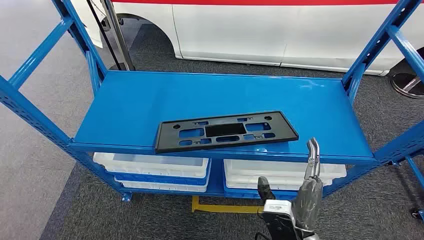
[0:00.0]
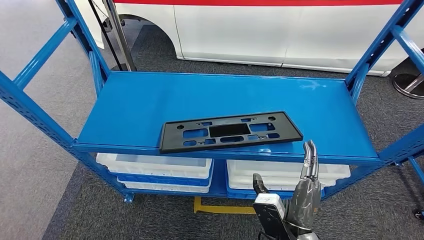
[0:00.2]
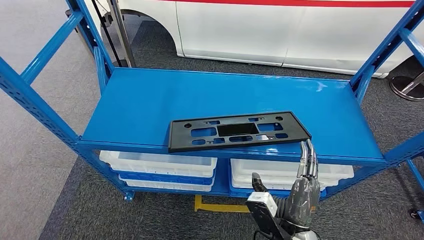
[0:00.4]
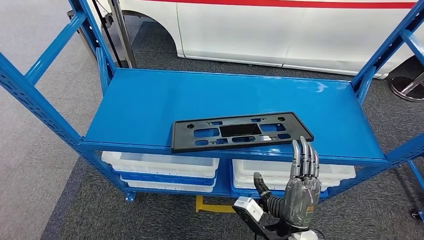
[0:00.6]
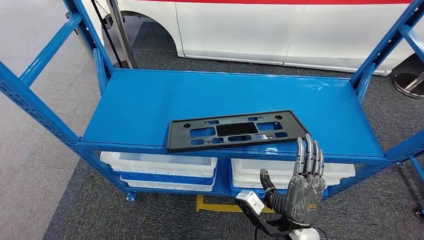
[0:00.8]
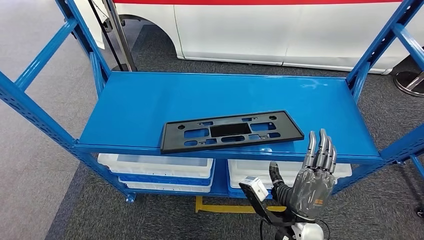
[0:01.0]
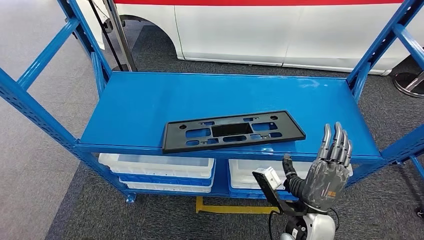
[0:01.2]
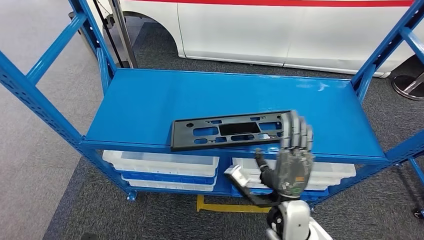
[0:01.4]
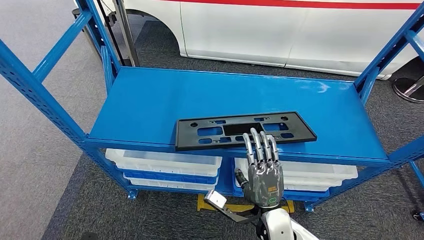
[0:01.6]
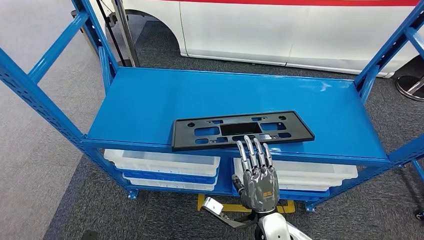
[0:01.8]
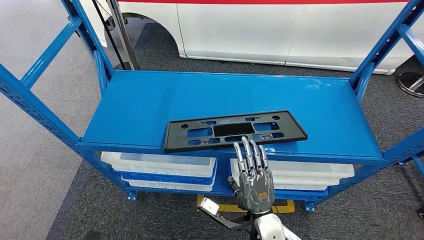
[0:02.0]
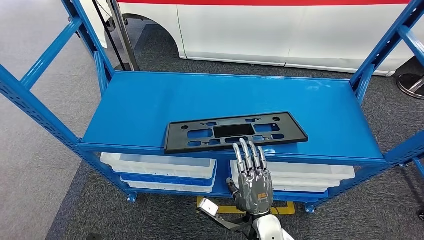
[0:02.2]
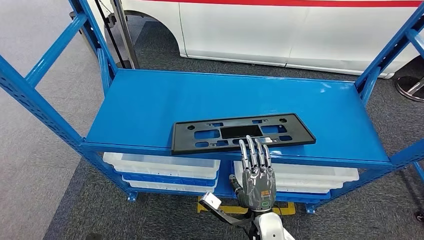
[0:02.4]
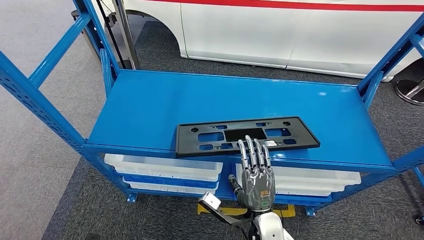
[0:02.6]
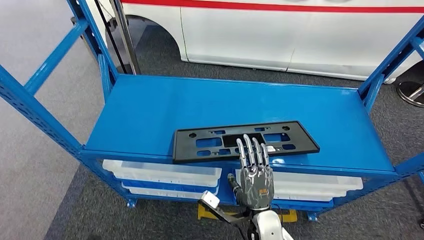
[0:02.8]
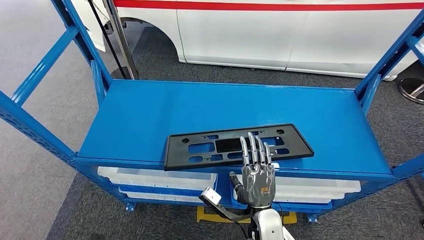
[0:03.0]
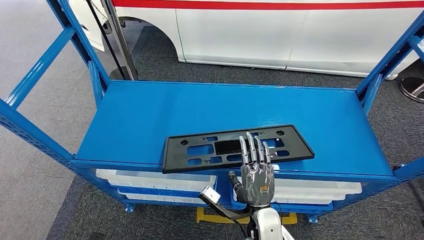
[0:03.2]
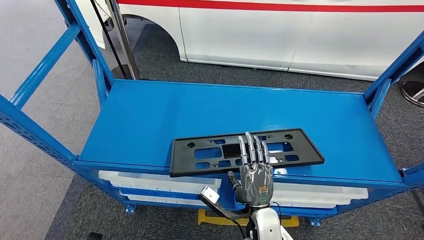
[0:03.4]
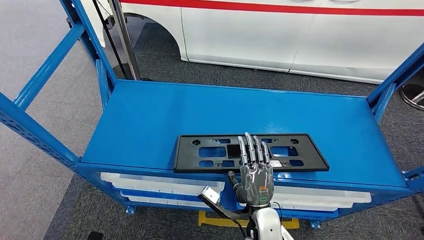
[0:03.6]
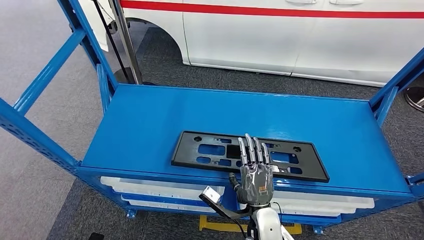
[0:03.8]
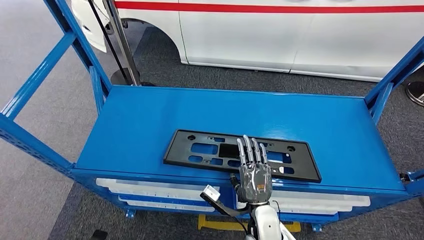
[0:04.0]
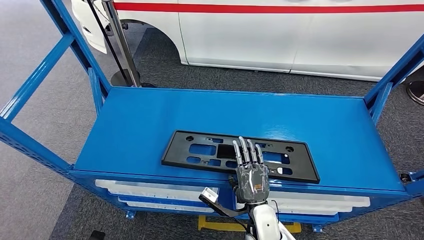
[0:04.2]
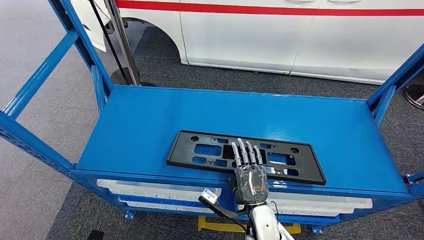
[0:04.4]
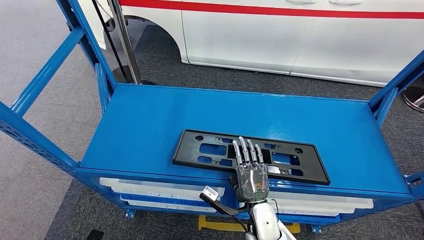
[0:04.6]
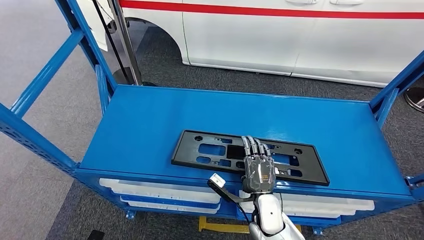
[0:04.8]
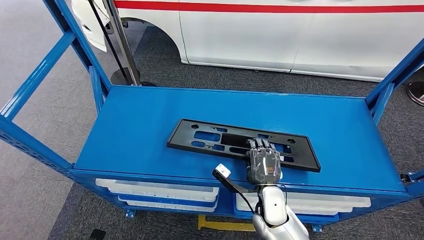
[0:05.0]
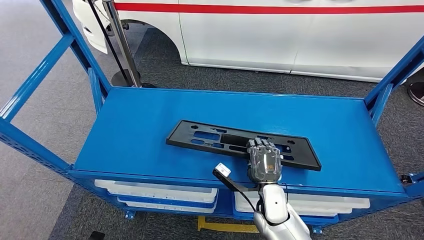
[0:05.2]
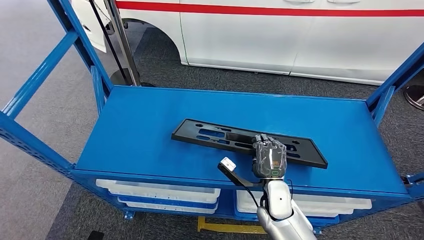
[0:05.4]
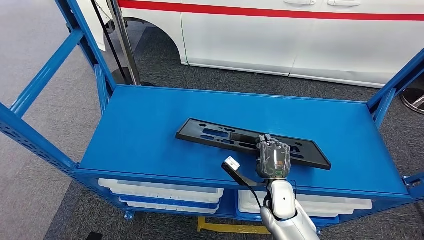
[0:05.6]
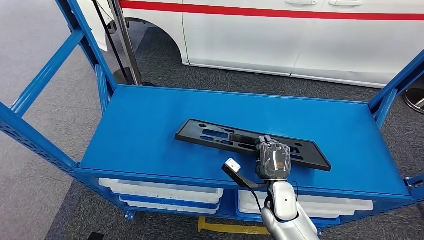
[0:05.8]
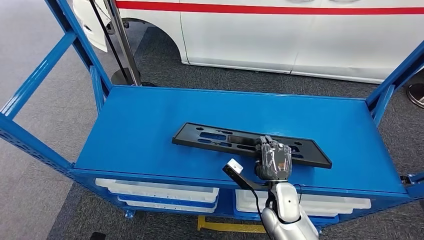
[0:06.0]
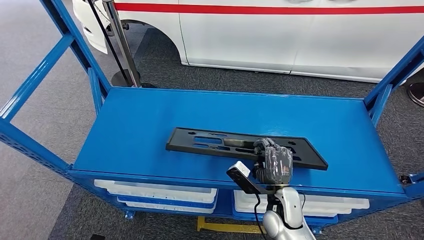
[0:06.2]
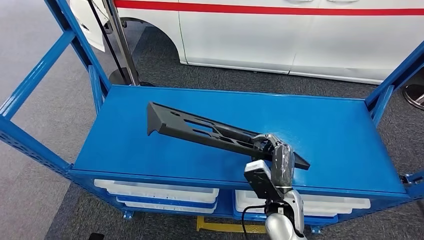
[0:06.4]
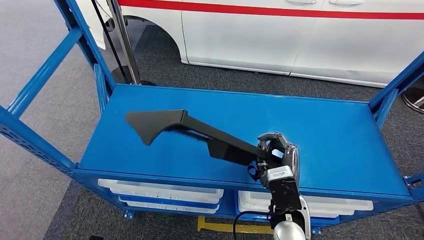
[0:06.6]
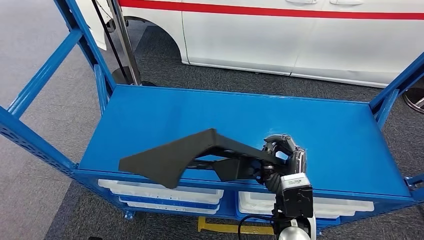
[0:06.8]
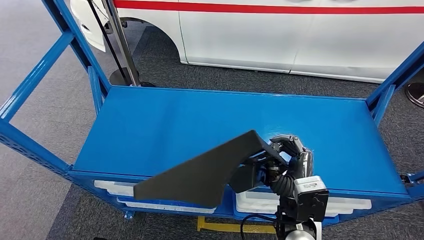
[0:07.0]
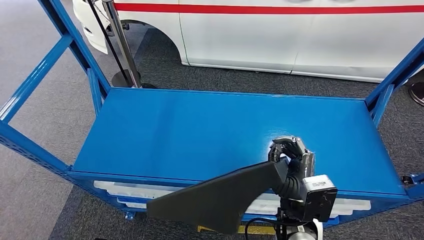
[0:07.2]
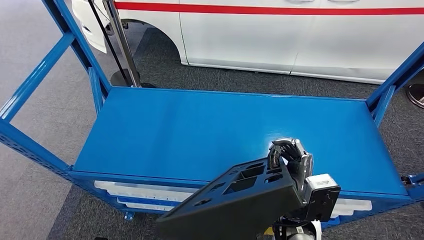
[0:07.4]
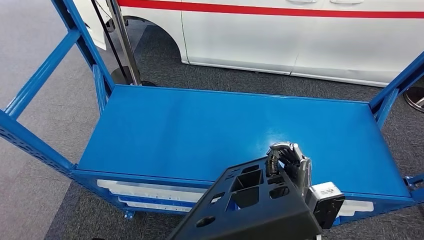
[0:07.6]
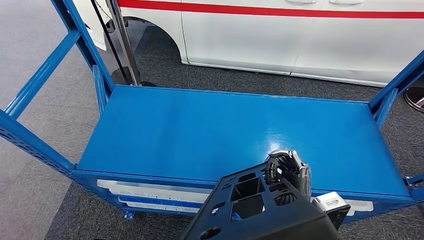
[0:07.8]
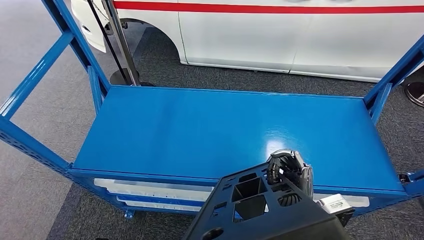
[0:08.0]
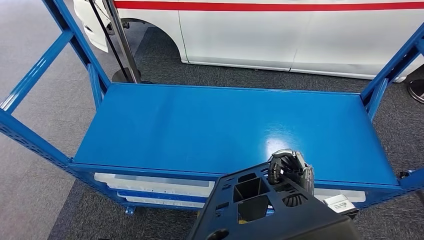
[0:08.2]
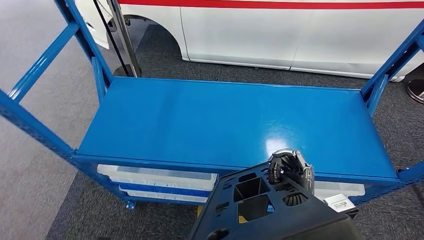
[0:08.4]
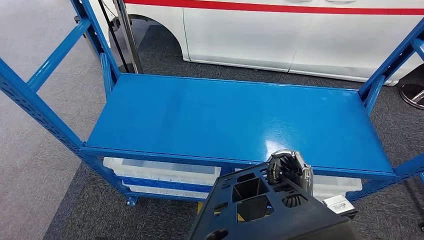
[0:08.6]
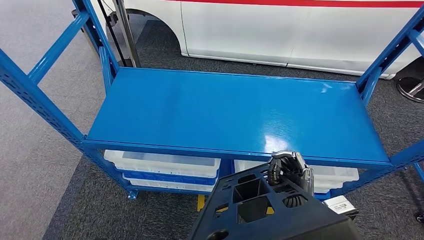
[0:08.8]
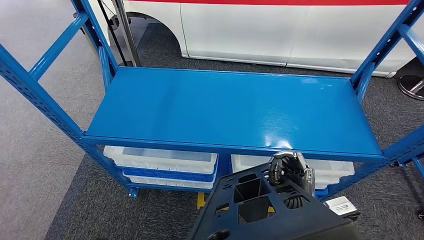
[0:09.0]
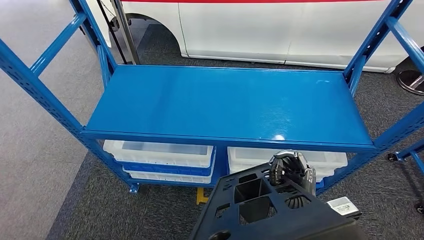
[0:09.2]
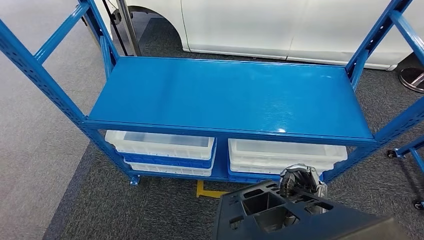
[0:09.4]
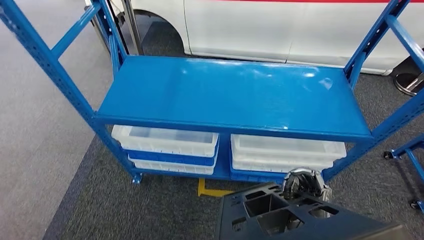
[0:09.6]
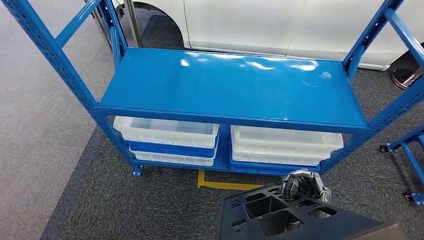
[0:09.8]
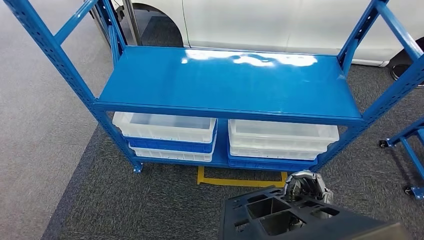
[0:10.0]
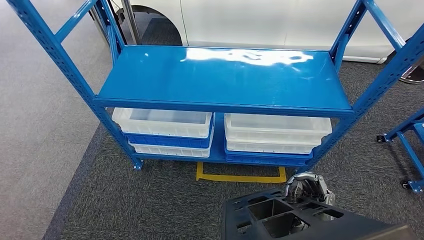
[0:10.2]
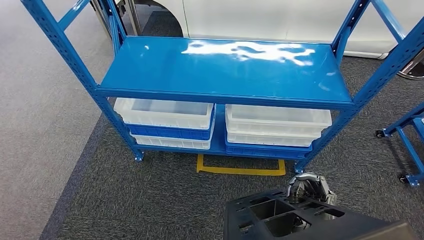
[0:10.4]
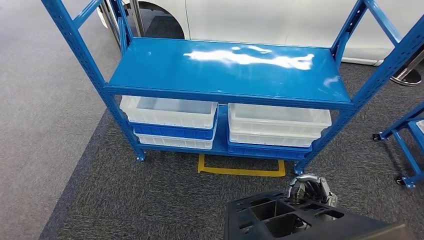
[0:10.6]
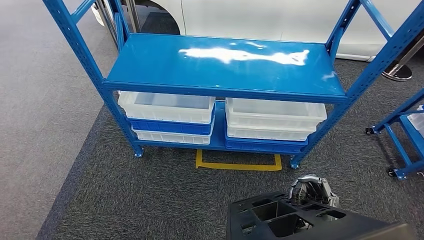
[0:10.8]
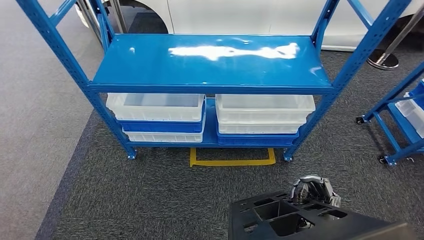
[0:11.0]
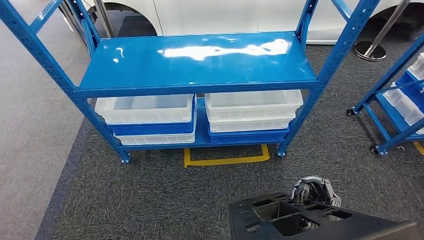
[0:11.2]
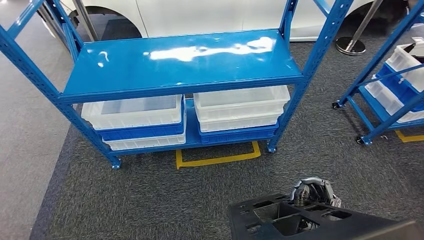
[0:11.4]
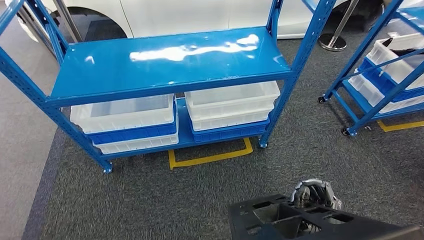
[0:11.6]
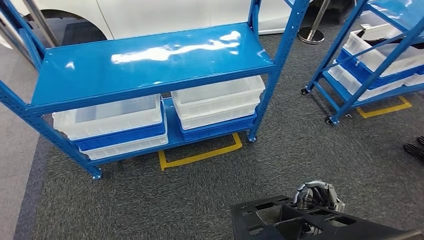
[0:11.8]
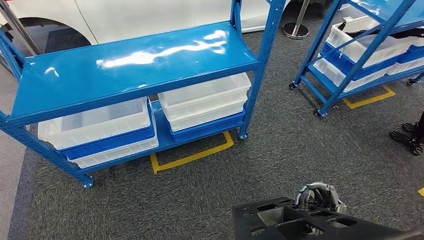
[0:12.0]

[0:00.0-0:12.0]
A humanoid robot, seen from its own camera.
Step, 0:00.0 to 0:07.0: Pick up the large material from the shelf.
0:04.4 to 0:06.0: The right hand goes some 5 cm forward.

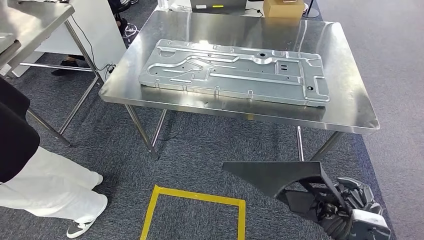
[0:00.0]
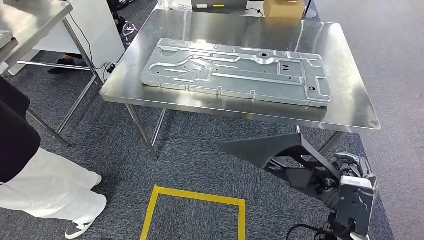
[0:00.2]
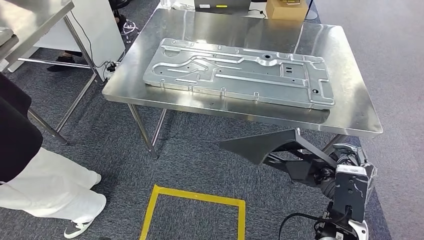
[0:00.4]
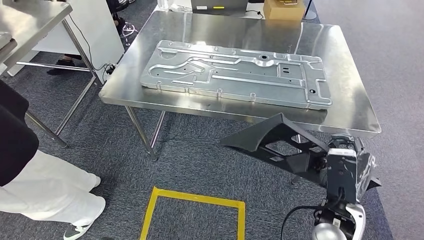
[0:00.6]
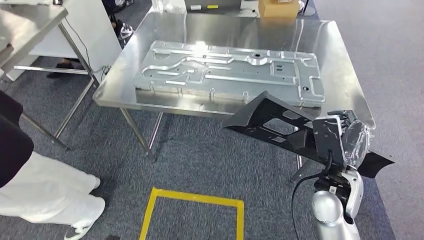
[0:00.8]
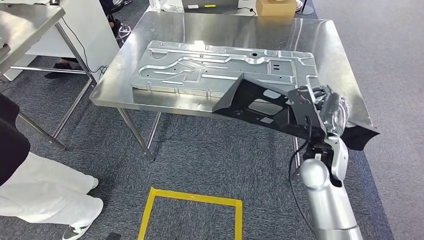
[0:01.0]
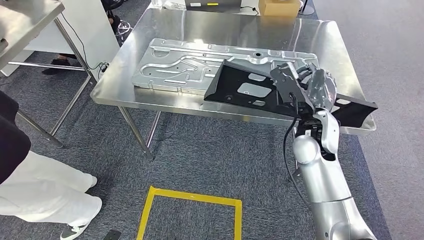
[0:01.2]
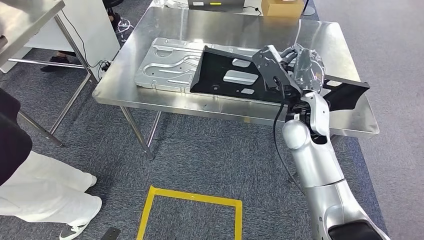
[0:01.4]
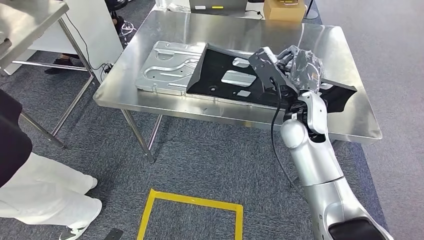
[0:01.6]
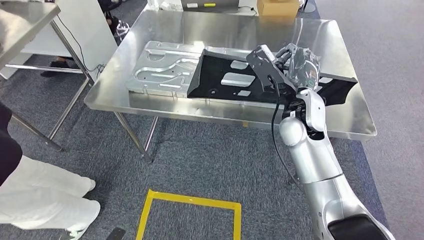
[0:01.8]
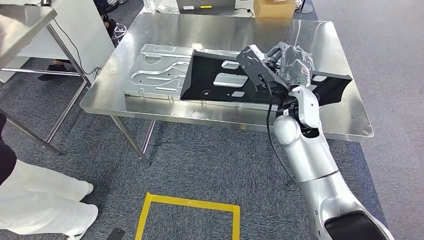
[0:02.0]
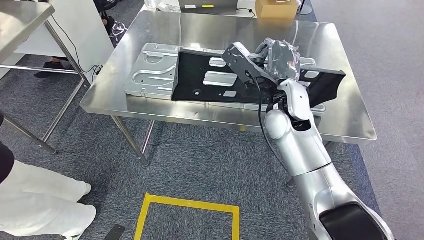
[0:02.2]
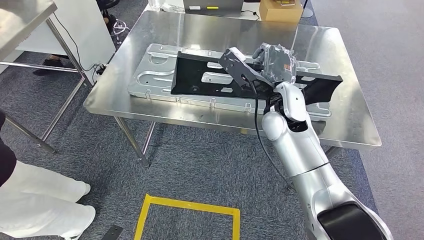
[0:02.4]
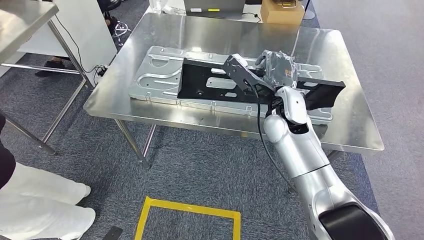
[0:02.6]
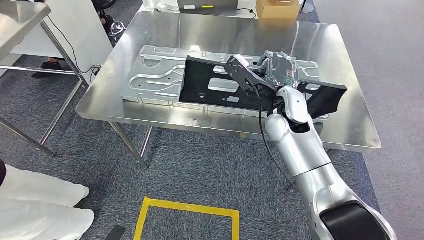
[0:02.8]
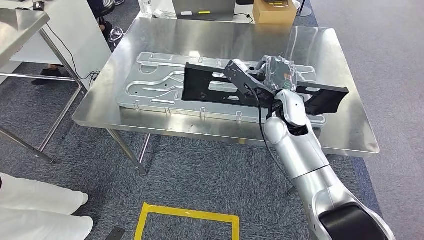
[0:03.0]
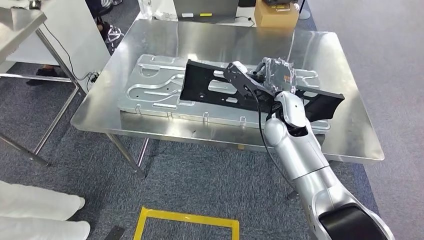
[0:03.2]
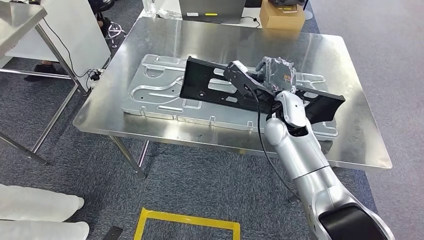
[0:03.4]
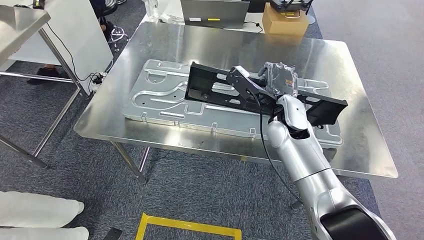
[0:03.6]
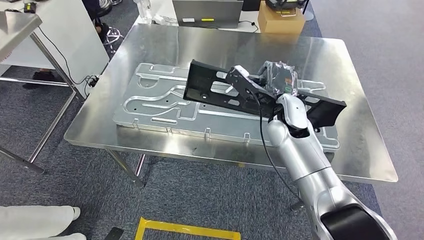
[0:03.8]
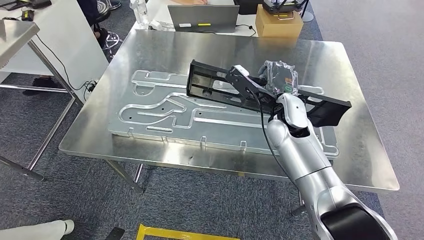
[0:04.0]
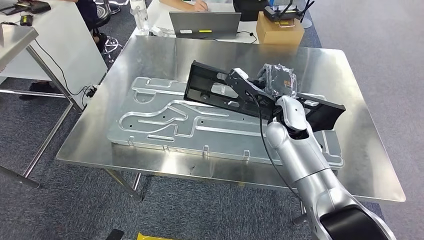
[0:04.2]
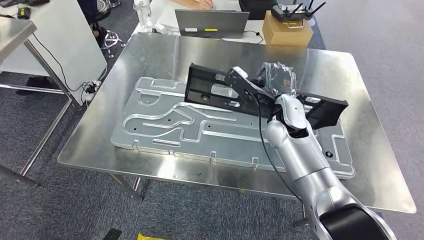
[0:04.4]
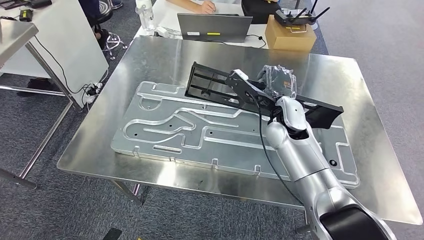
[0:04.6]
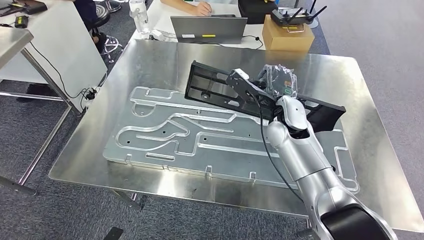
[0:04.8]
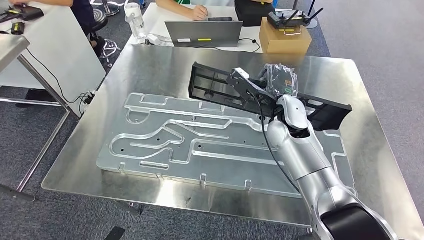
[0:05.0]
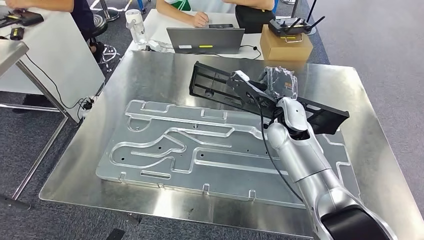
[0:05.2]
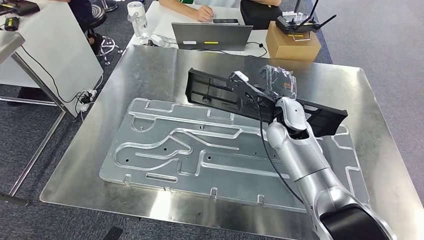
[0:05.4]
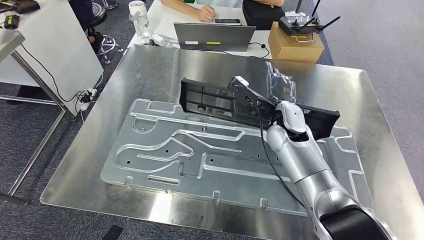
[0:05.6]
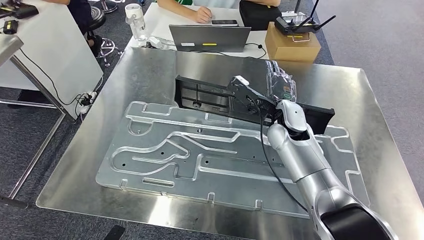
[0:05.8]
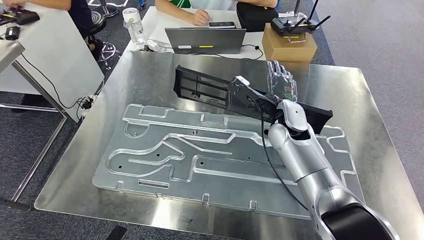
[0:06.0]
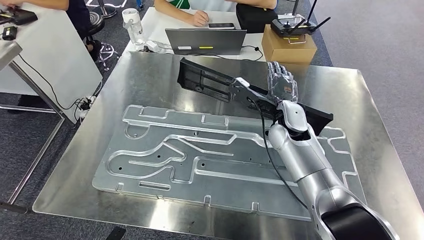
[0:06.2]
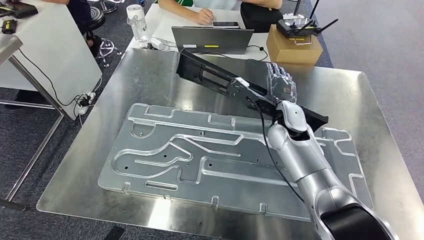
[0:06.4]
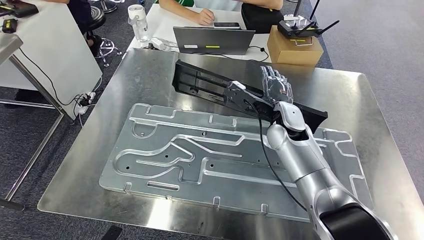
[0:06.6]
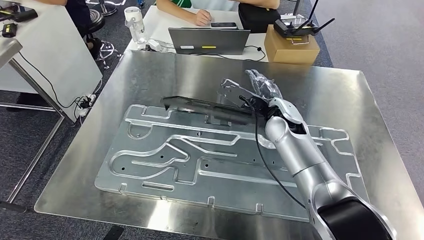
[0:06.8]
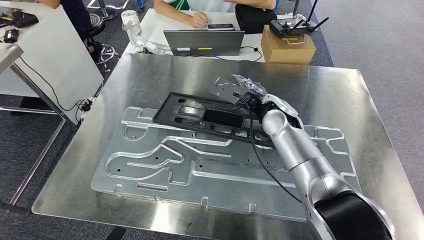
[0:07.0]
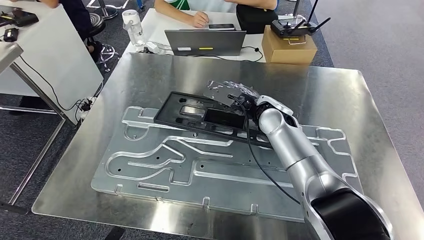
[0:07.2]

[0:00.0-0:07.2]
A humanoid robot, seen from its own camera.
Step, 0:00.0 to 0:03.0: Move the large material to the workbench.
